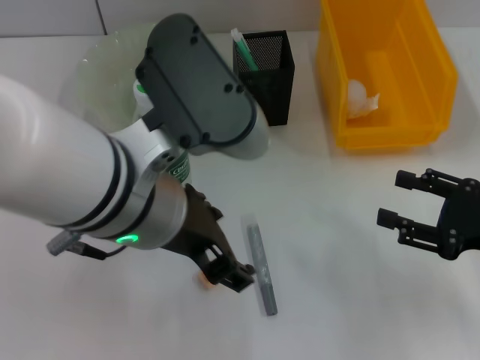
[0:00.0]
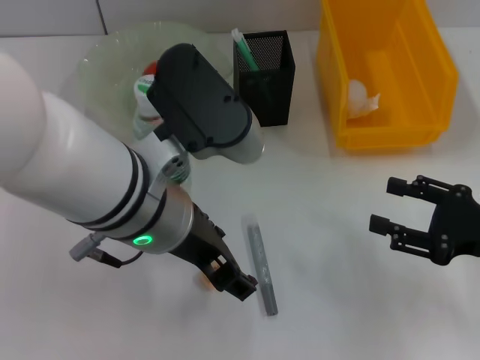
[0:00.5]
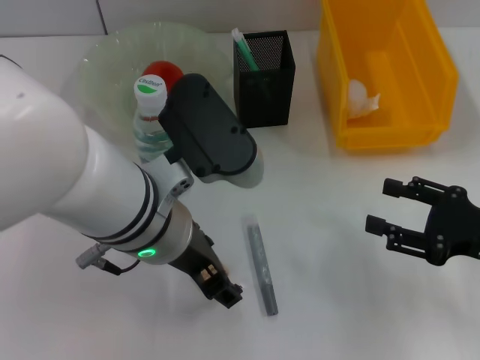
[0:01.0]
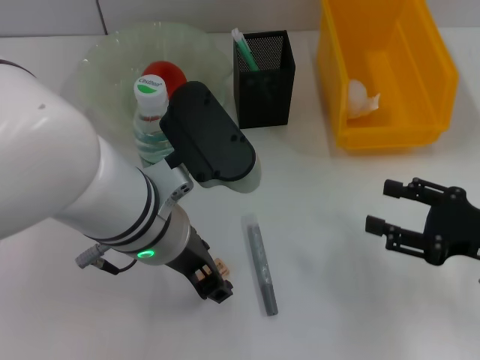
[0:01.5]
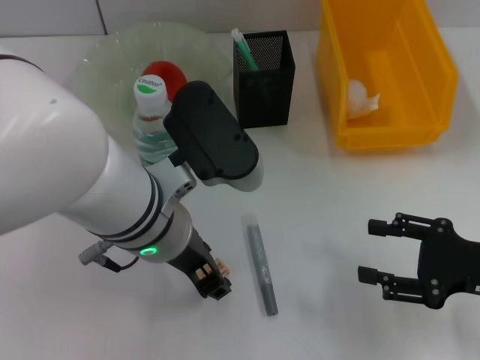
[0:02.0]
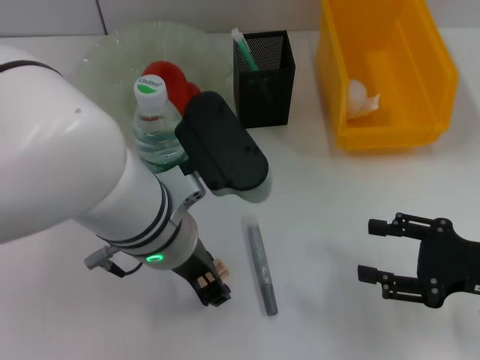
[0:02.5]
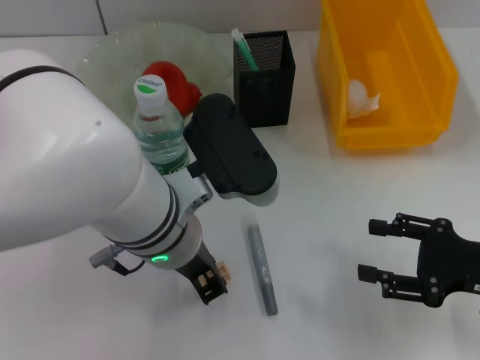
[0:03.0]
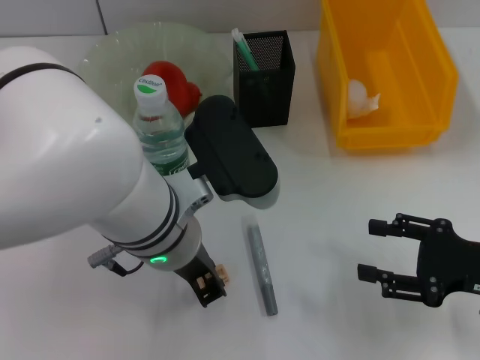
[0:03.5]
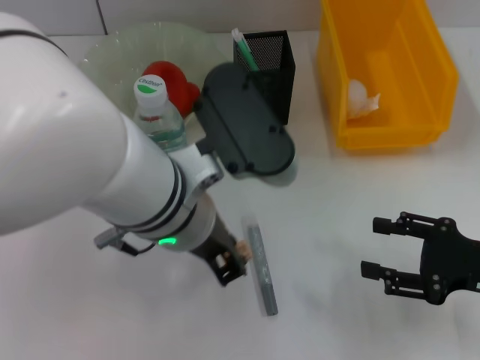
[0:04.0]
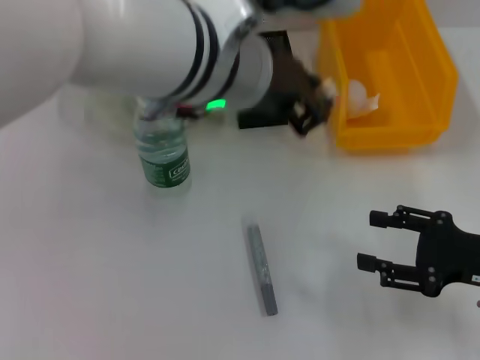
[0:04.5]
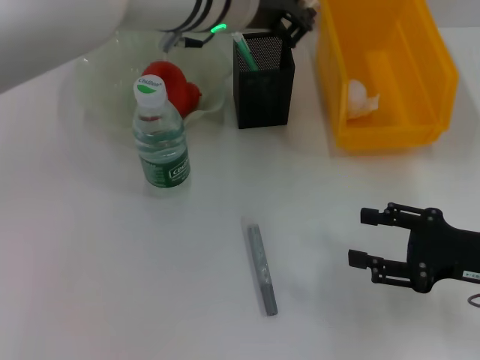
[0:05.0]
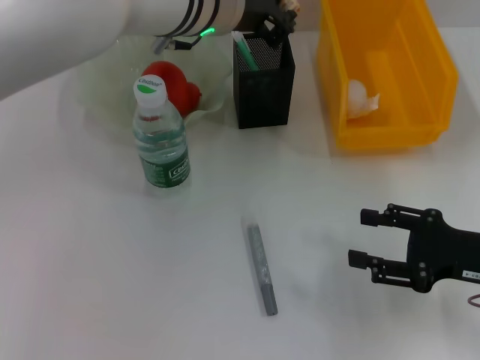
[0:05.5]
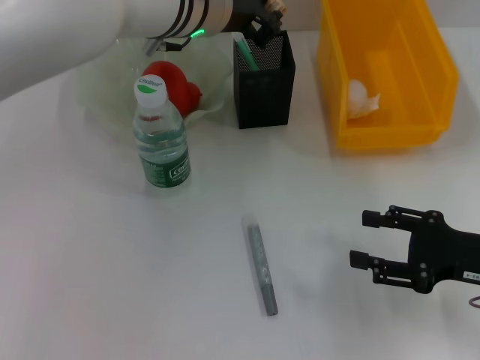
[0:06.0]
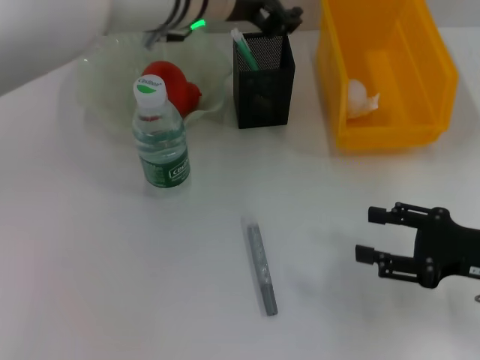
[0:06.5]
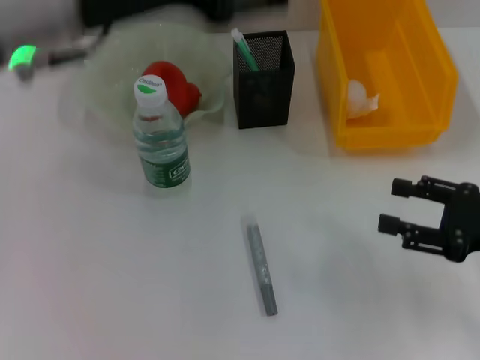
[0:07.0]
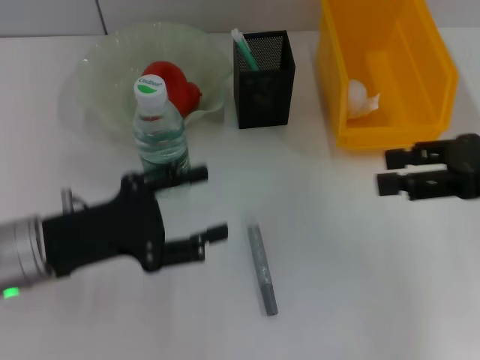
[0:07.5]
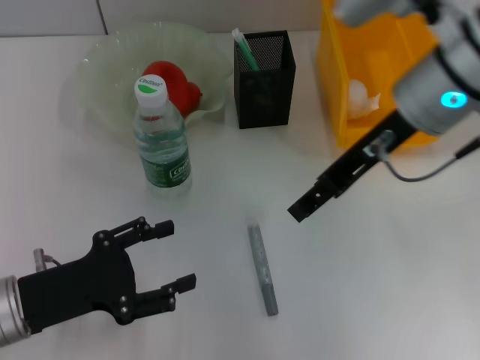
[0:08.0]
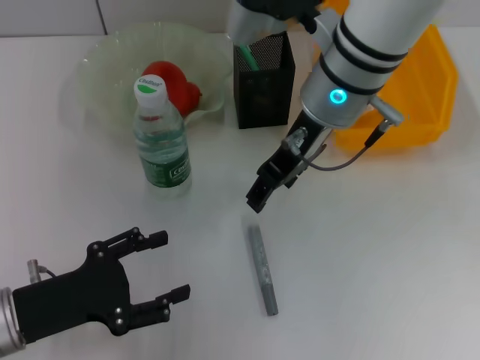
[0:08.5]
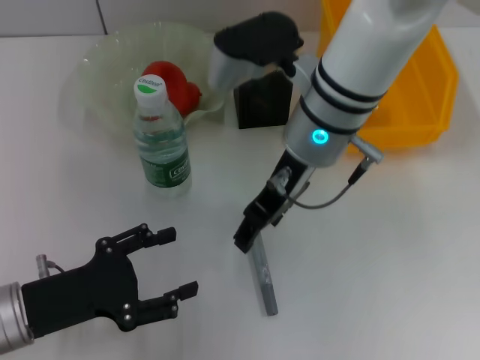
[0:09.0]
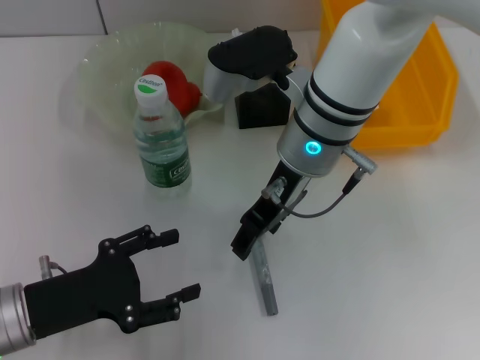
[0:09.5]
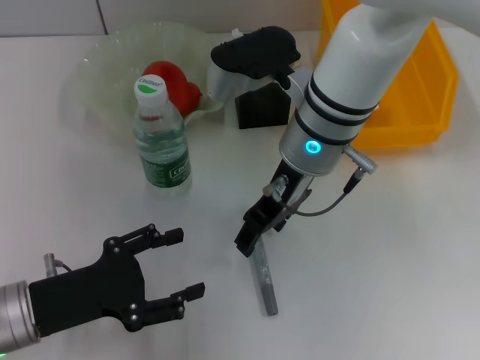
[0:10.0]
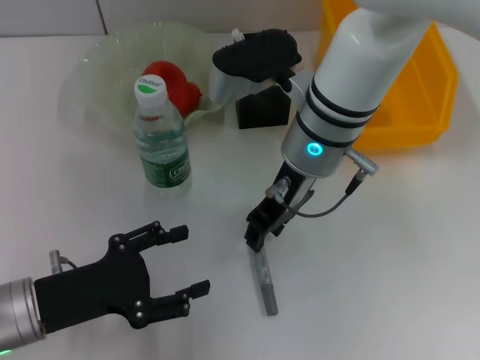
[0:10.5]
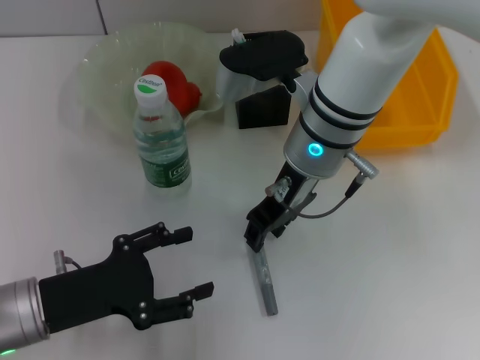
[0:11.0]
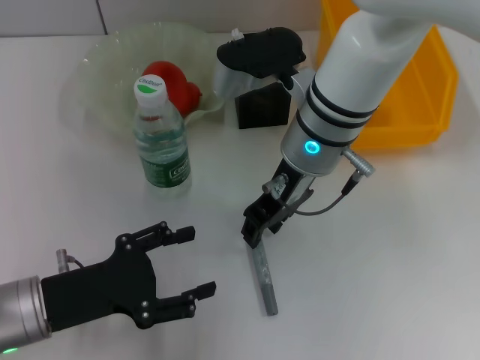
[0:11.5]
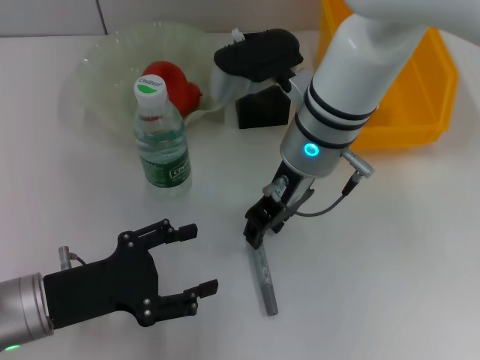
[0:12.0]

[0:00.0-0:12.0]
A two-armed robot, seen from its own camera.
Step, 0:00.0 to 0:02.5: Grab the eraser with the left hand.
Step, 0:03.0 to 0:07.0: Place the eraser into the pen holder with the left hand.
0:00.0 to 0:02.0: The left gripper shifts about 5 cm downward, and closes up.
0:02.0 to 0:04.0: The left gripper closes up.
0:04.0 to 0:06.0: The left gripper shifts some 15 cm forward.
0:06.0 to 0:08.0: The left gripper travels backward, to the left and downward by roughly 35 cm, and opens its fingers; the right gripper moves upward, to the left and forward, about 25 cm.
0:08.0 to 0:10.0: The right gripper moves to the left and downward, approximately 10 cm.
0:10.0 to 0:12.0: Neither gripper changes place.

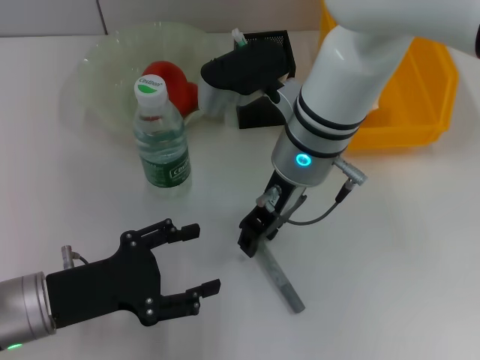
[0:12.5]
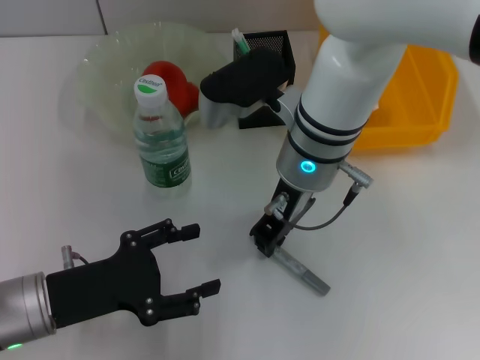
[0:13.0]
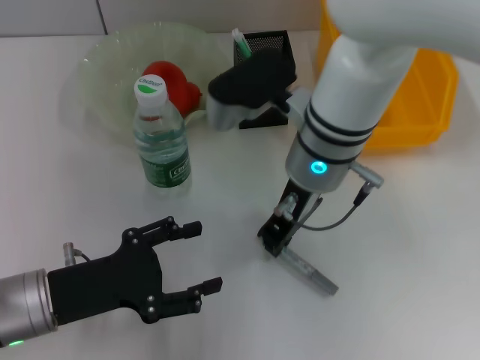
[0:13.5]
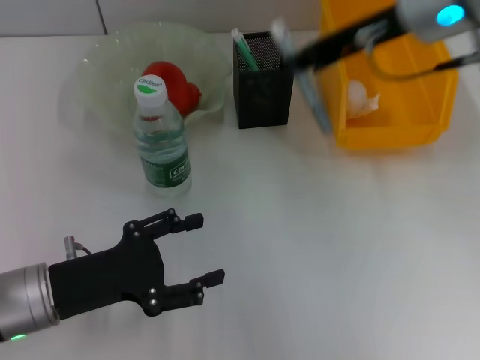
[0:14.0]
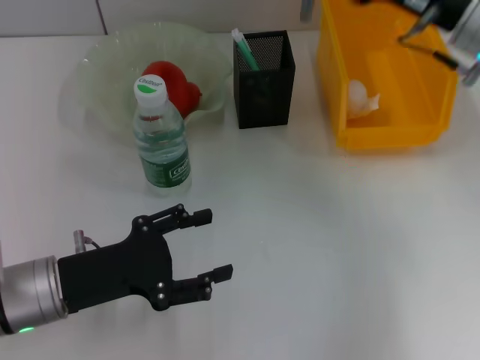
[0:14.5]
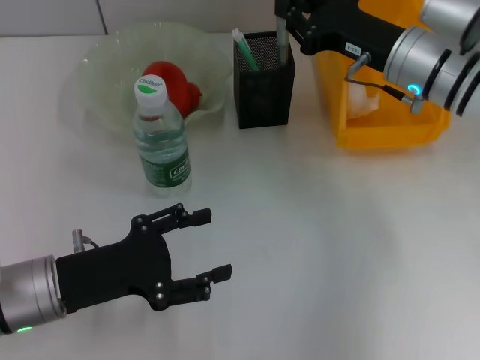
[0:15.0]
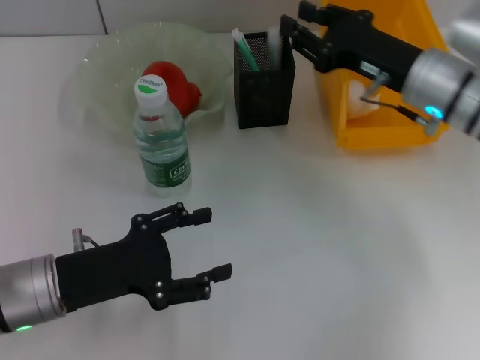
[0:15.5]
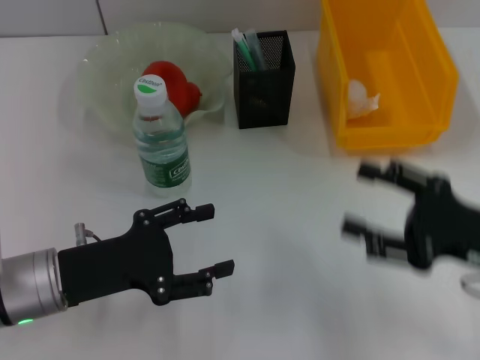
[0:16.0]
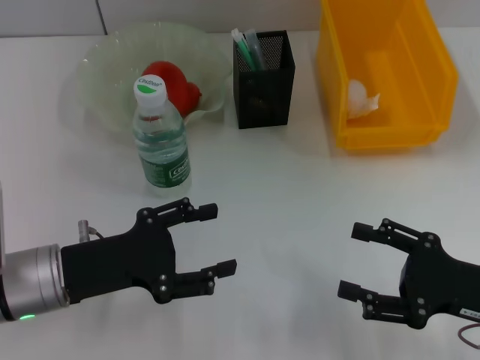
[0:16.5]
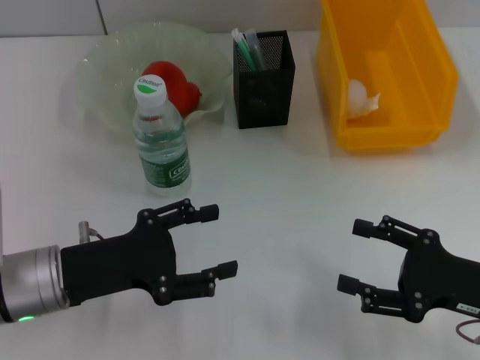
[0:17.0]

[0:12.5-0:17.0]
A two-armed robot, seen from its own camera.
Step, 0:13.5 to 0:16.5: Place the gray glue into the pen holder with the right hand.
0:12.5 to 0:14.5: The right gripper moves to the right, roughly 15 cm, and closes up.
0:14.5 to 0:17.0: The right gripper heads backward and downward, covering about 25 cm, and opens.
